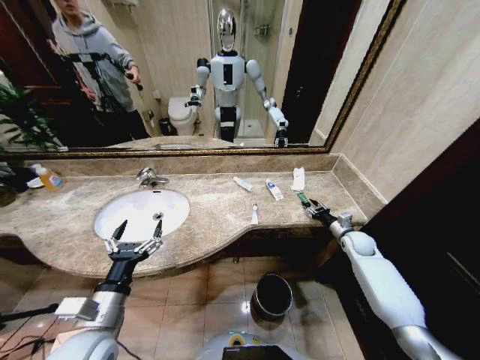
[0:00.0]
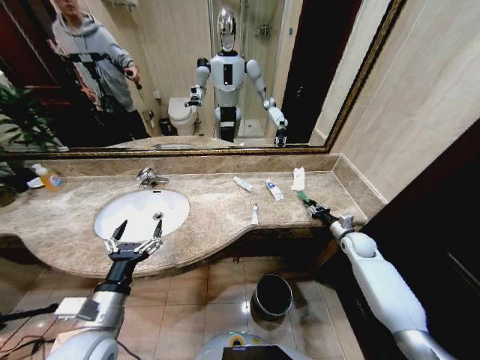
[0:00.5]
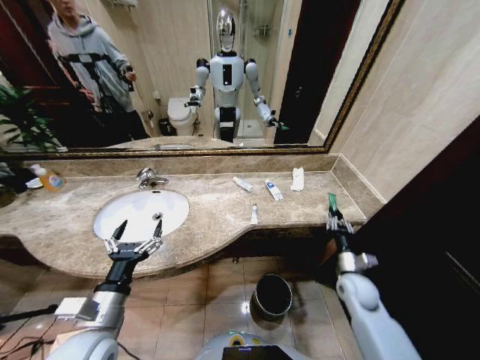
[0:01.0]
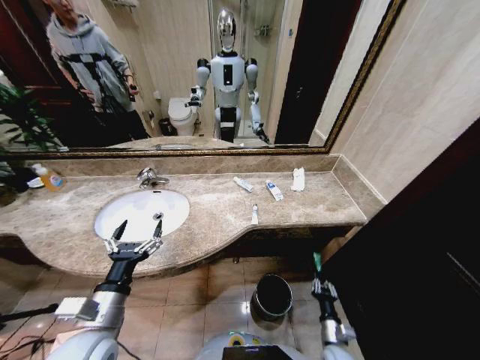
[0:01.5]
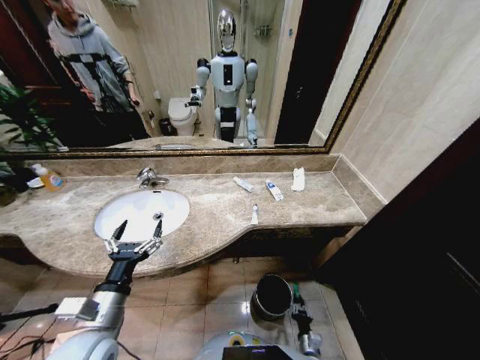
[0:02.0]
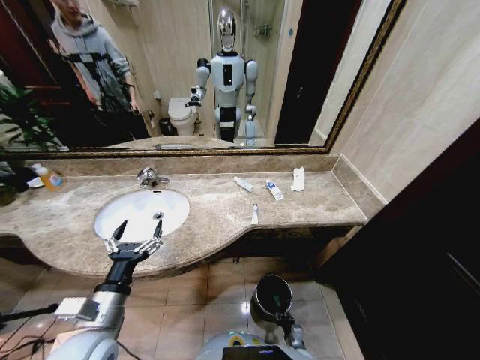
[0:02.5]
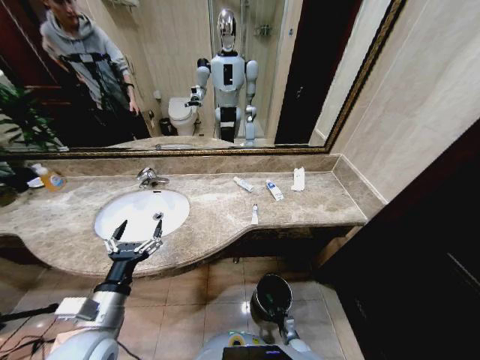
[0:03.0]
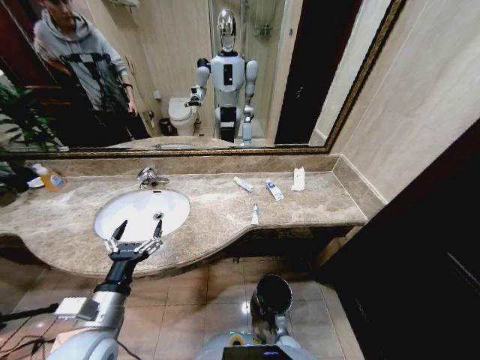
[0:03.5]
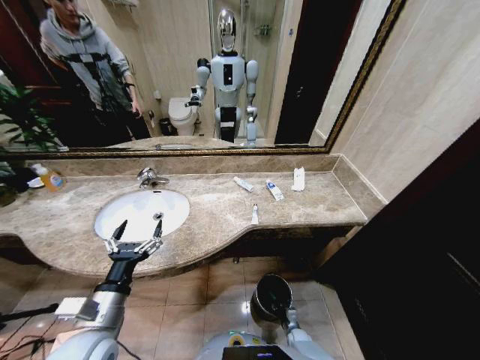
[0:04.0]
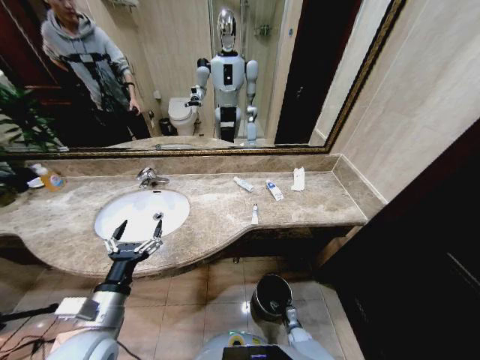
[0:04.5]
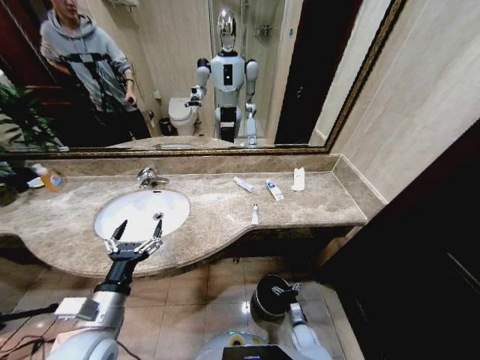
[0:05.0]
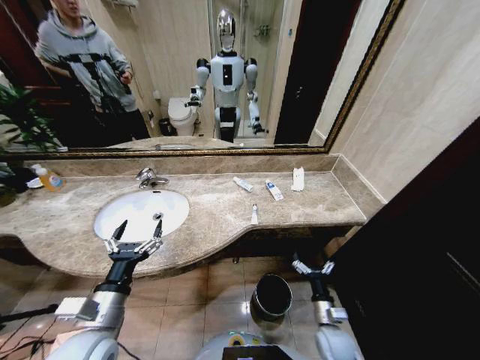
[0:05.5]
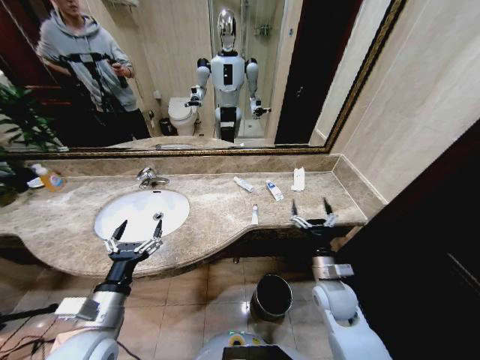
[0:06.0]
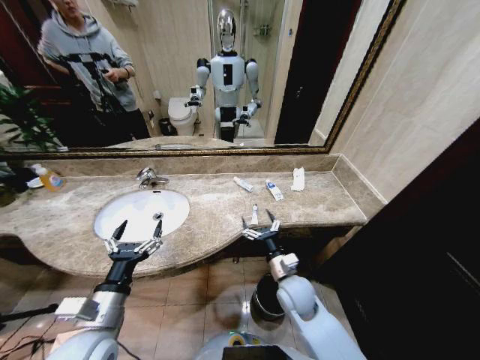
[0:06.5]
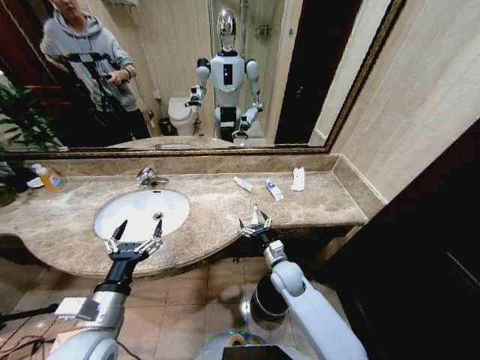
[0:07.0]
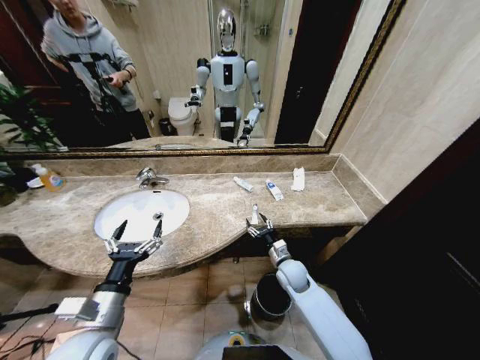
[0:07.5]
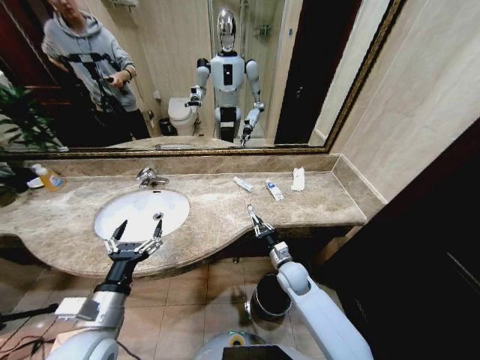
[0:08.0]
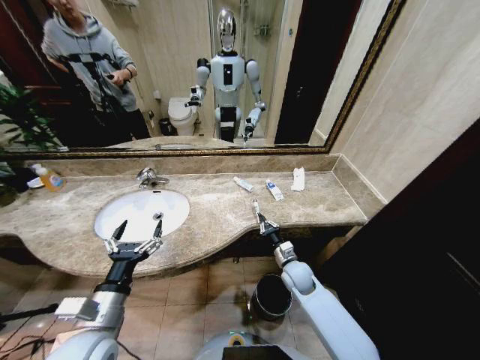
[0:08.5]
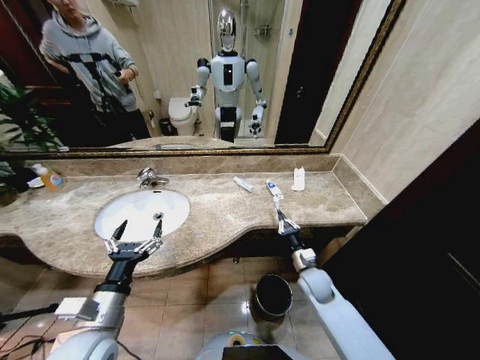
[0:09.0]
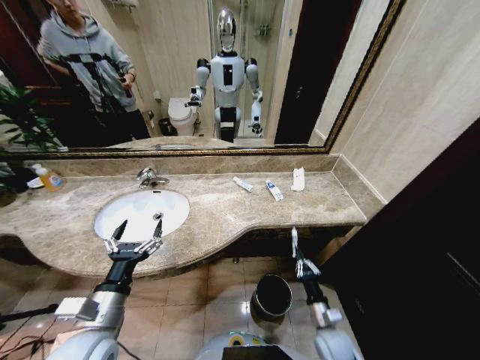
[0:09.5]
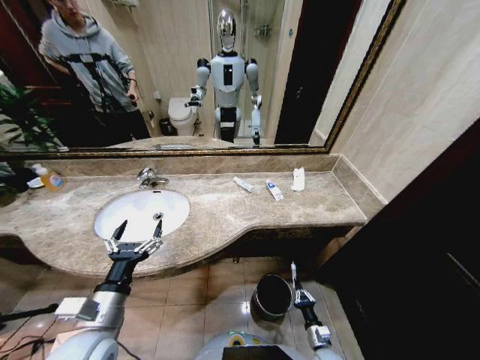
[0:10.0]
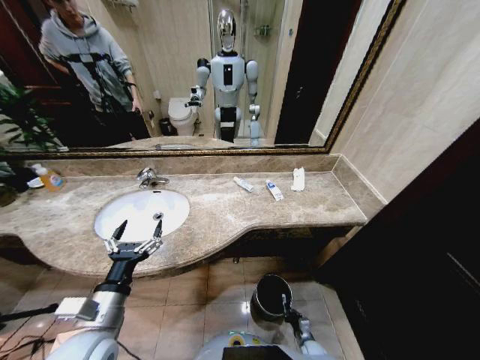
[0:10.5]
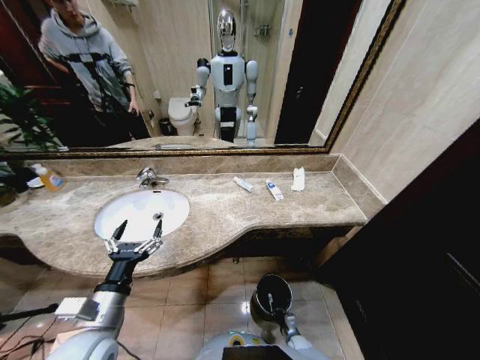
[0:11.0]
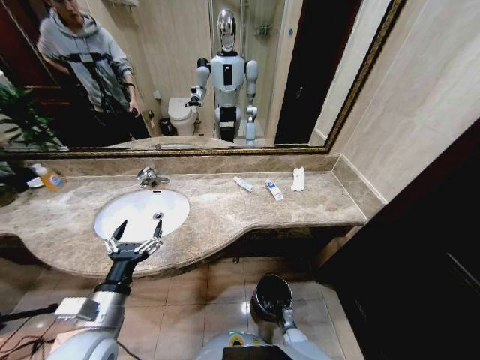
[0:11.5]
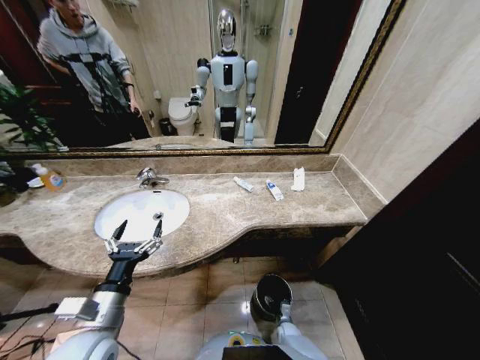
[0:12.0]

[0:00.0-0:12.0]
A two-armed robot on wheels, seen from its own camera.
Task of the whole recording: Pick up the trash from the sink and place it in the trash bin.
0:00.0 to 0:02.0: The right gripper heads backward, downward and to the left, covering about 50 cm.
0:02.0 to 0:04.0: The right gripper moves forward and downward, roughly 10 cm.
0:04.0 to 0:06.0: The right gripper heads upward, covering roughly 40 cm, and opens.
0:06.0 to 0:08.0: The right gripper shifts roughly 15 cm forward, downward and to the left, and closes up.
0:08.0 to 0:10.0: The right gripper is displaced downward, backward and to the right by about 30 cm.
0:10.0 to 0:12.0: The right gripper goes roughly 15 cm downward, forward and to the left, and opens up.

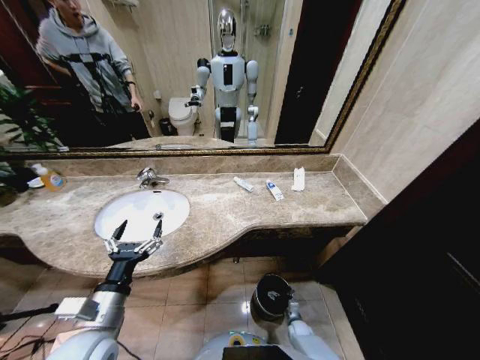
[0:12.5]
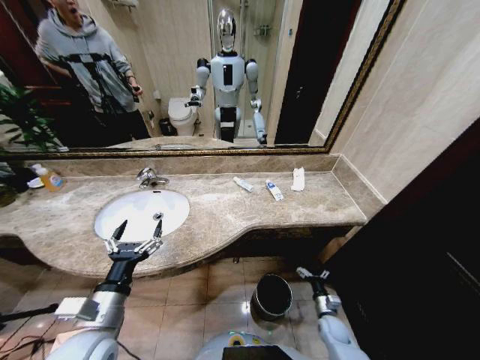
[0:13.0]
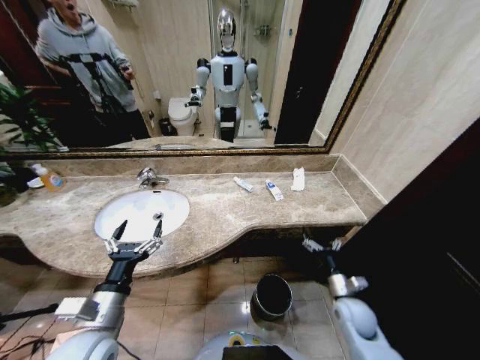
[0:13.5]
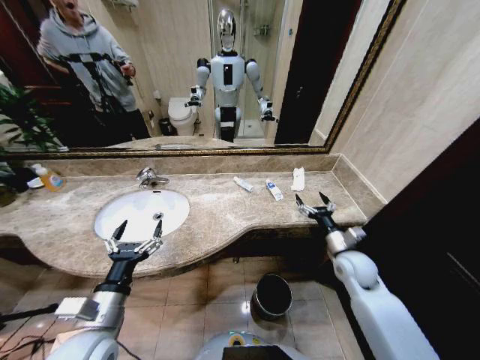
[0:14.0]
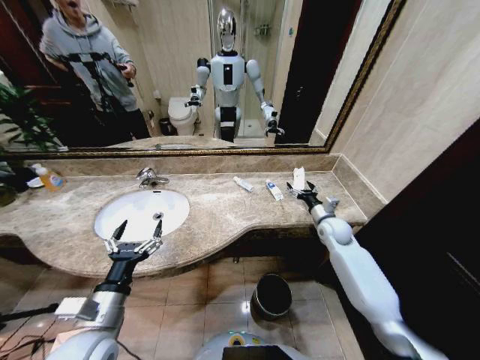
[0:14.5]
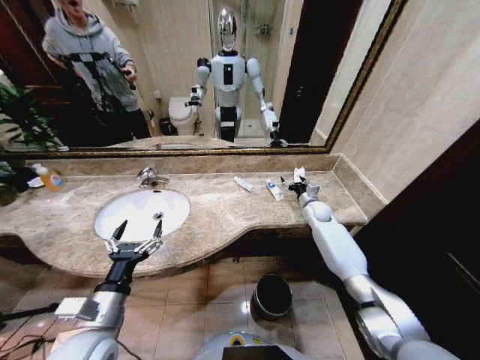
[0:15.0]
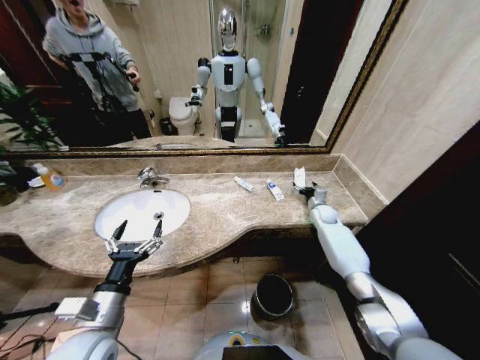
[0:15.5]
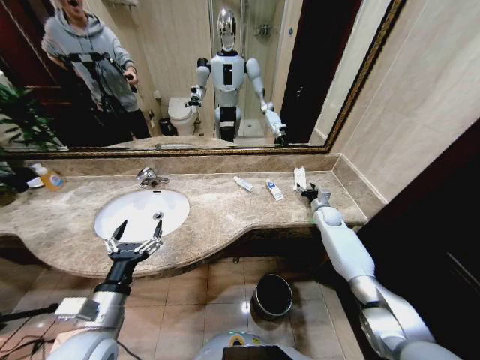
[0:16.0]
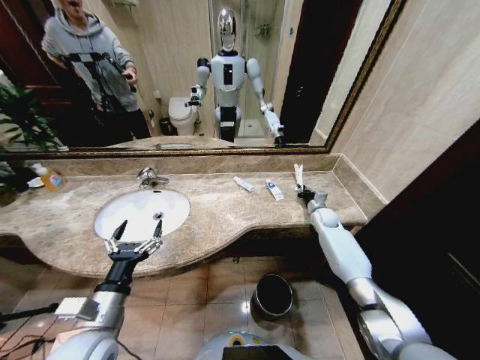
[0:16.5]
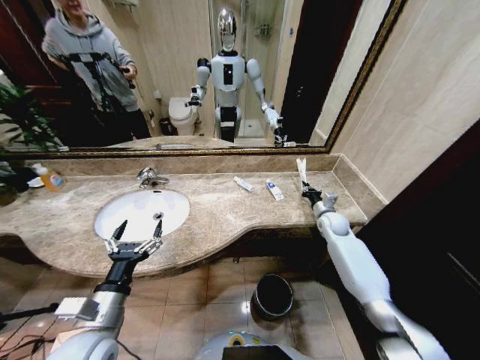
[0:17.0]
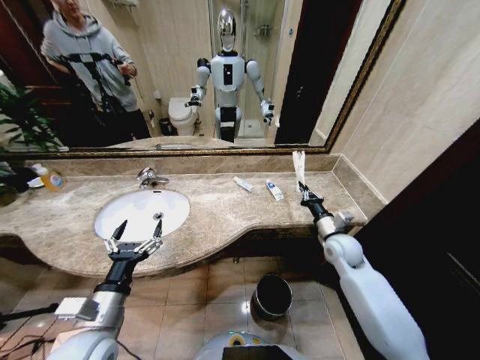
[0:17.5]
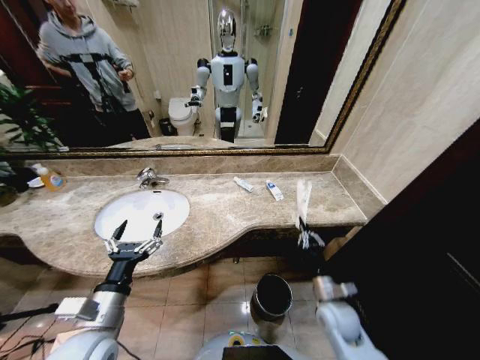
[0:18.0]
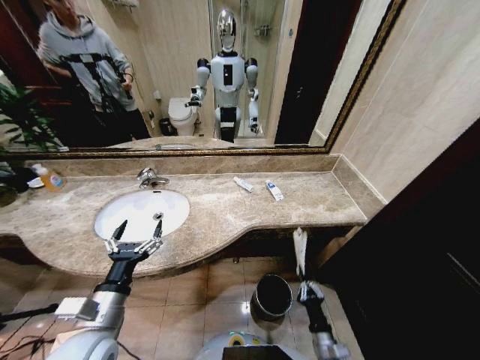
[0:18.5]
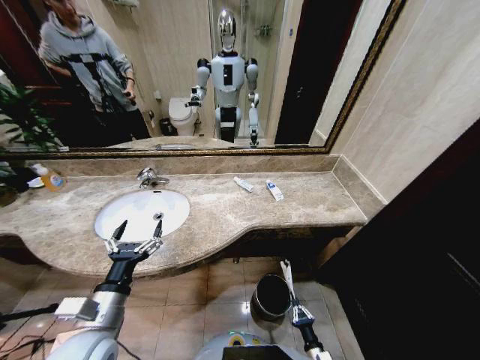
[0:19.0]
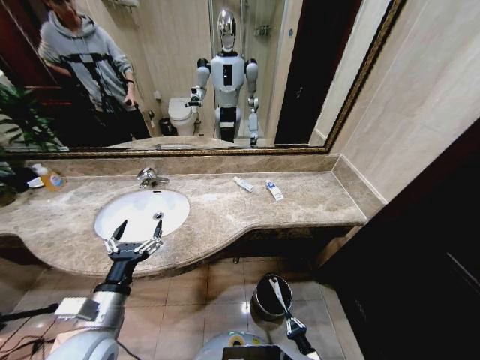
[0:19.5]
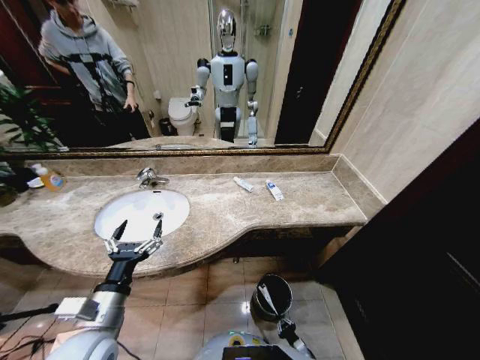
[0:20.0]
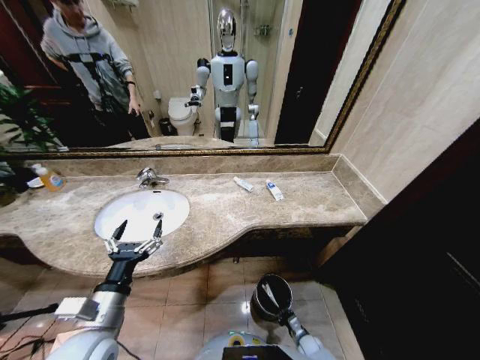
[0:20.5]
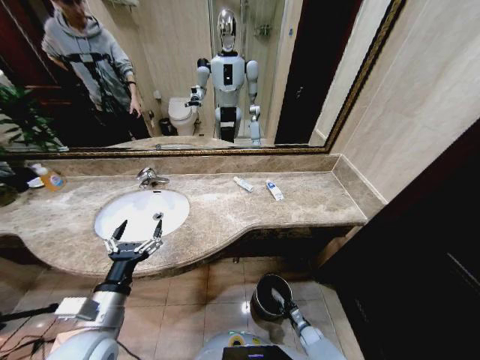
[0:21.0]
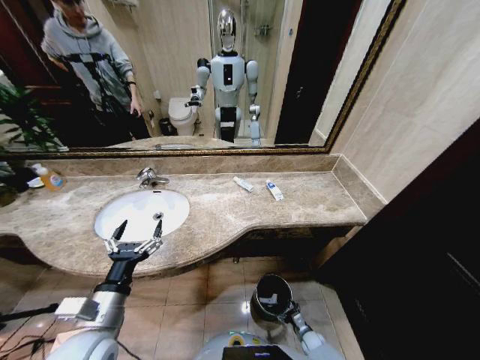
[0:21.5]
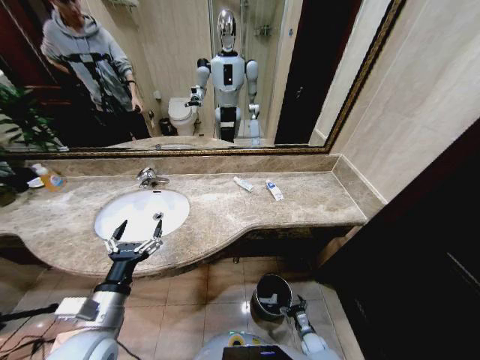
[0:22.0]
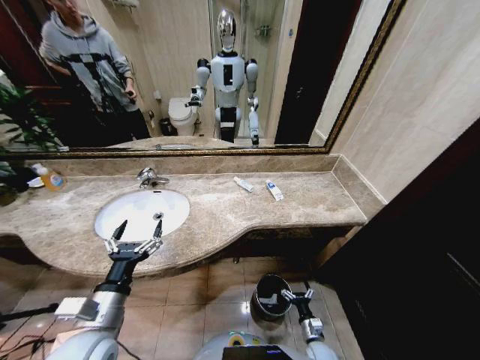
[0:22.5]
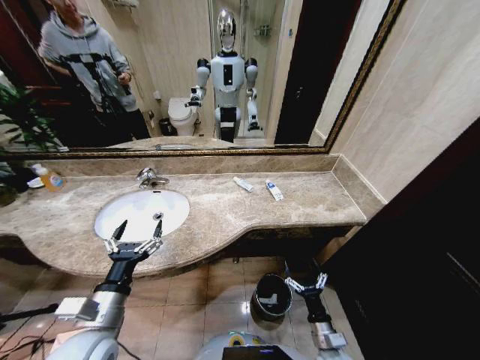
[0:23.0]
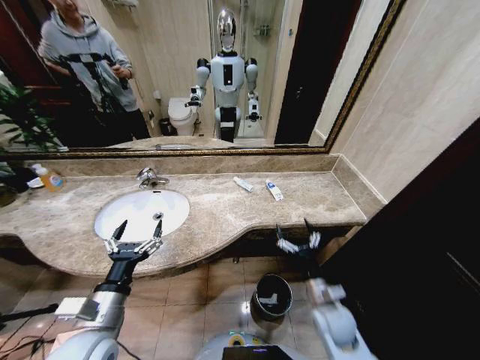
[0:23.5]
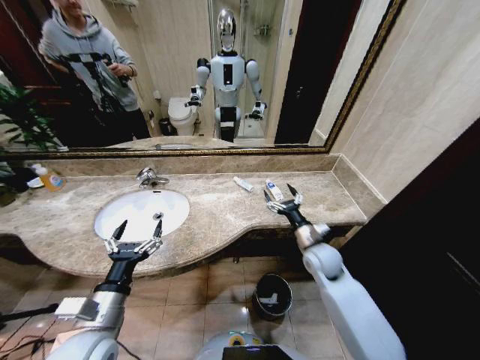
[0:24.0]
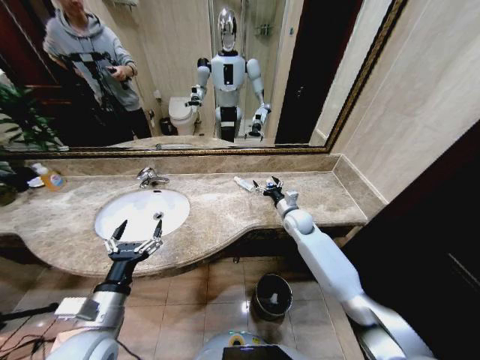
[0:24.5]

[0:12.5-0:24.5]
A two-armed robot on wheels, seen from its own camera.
Task of the whole recording: Pick up the trash from the sink and place it in the trash bin.
0:12.5 to 0:14.5: The right gripper goes about 50 cm upward and forward.
0:14.5 to 0:16.5: The right gripper heads forward and downward, covering about 10 cm, and closes up.
0:16.5 to 0:18.5: The right gripper shifts about 40 cm backward.
0:18.5 to 0:20.5: The right gripper goes some 20 cm downward.
0:20.5 to 0:22.5: The right gripper is displaced upward by some 10 cm, and opens its fingers.
0:22.5 to 0:24.5: The right gripper moves forward and upward, some 50 cm.

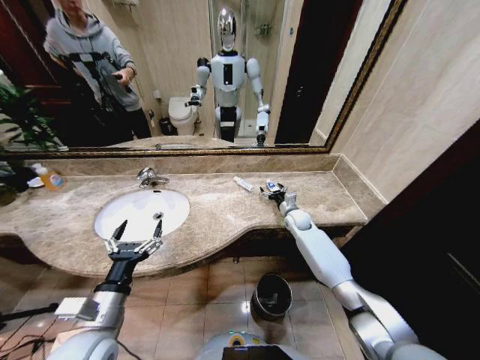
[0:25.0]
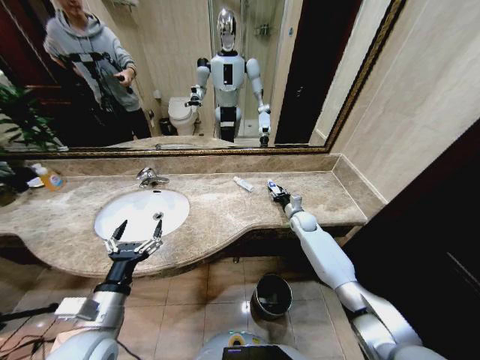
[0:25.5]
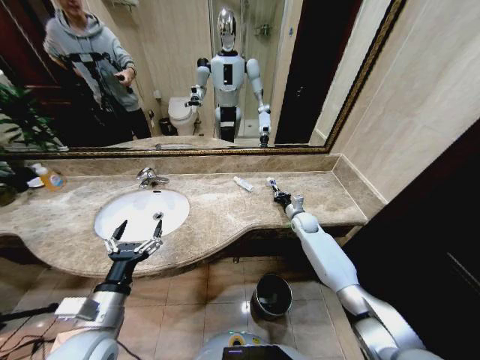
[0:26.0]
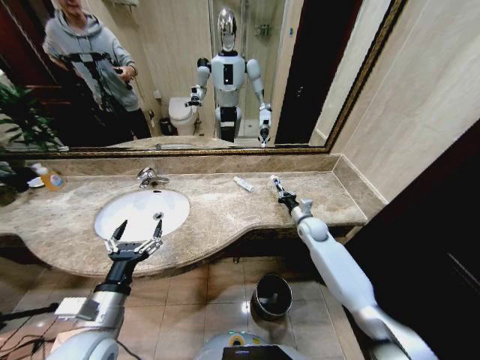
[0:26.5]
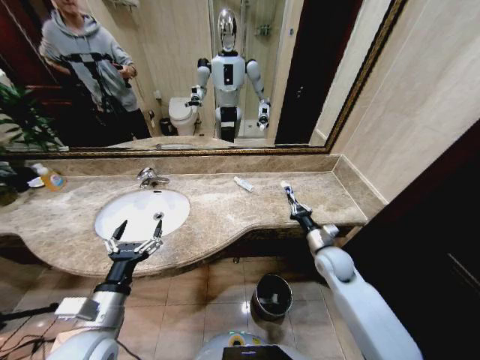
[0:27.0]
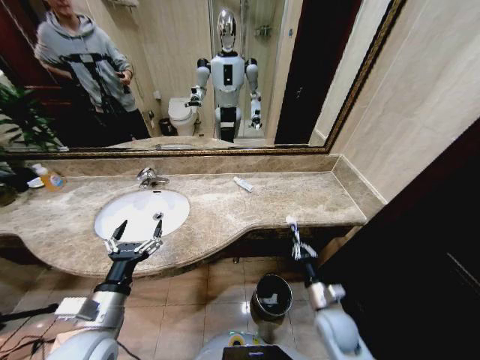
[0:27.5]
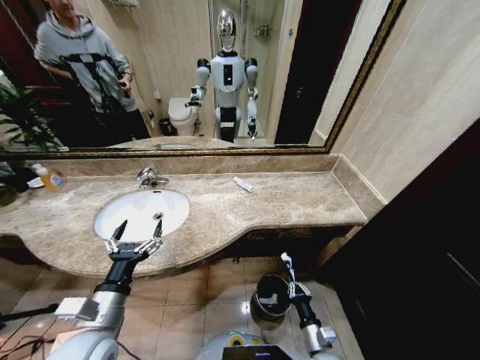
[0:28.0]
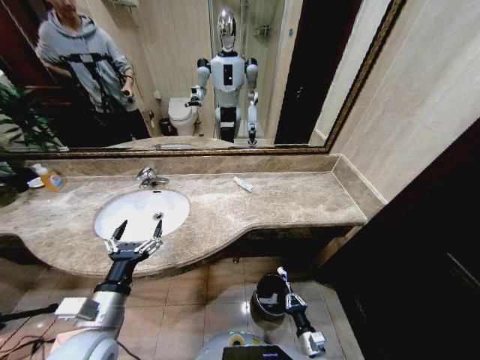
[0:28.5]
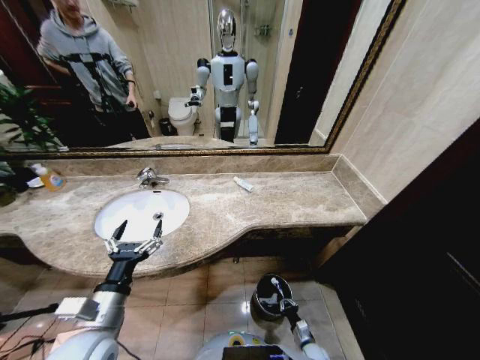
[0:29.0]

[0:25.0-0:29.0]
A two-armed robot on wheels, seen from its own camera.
Task of the whole recording: Pick up the trash from the sink and place it in the trash bin.
0:25.0 to 0:27.0: The right gripper travels backward by about 20 cm, and closes its fingers.
0:27.0 to 0:29.0: The right gripper goes roughly 40 cm downward and backward.
